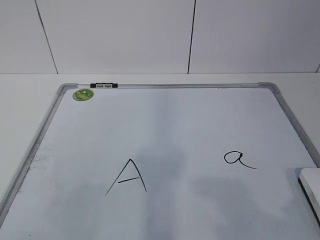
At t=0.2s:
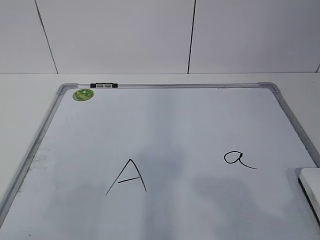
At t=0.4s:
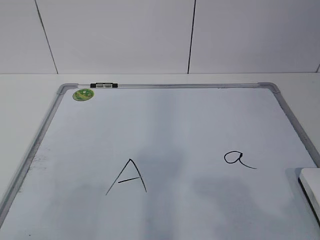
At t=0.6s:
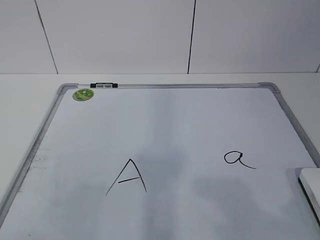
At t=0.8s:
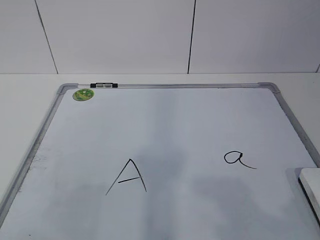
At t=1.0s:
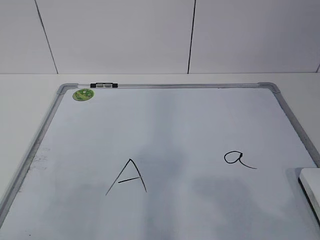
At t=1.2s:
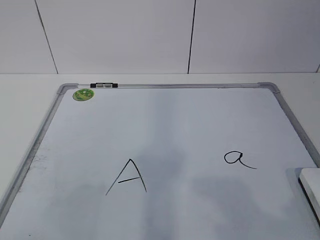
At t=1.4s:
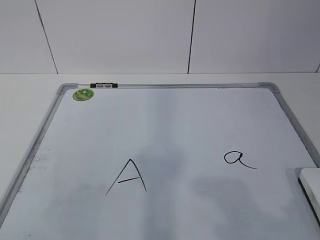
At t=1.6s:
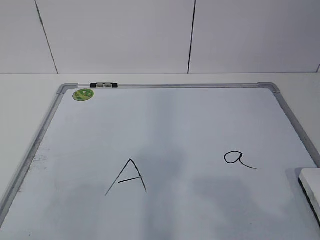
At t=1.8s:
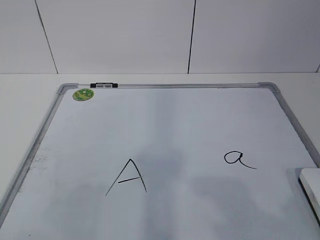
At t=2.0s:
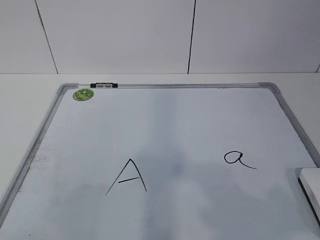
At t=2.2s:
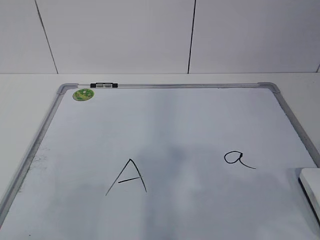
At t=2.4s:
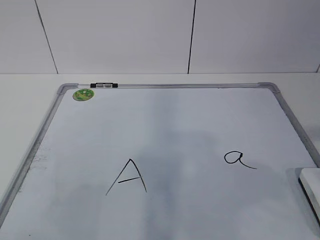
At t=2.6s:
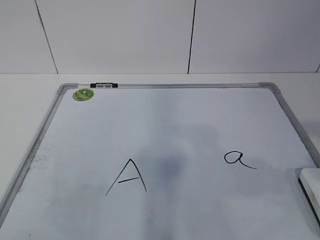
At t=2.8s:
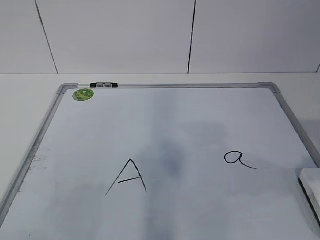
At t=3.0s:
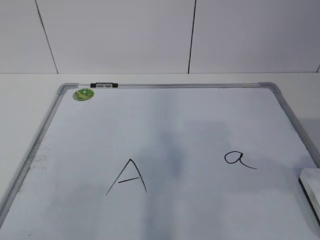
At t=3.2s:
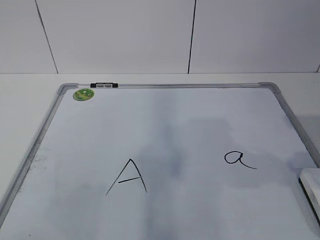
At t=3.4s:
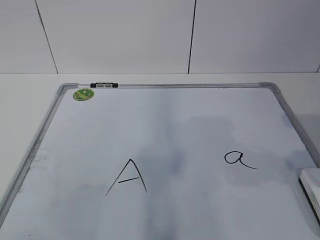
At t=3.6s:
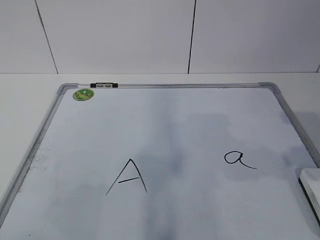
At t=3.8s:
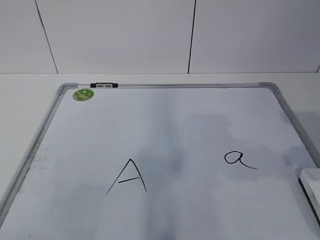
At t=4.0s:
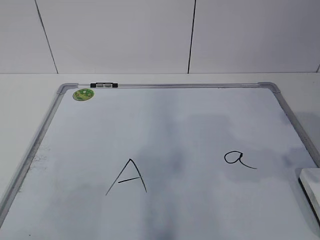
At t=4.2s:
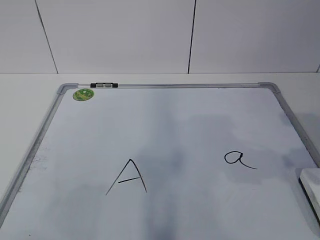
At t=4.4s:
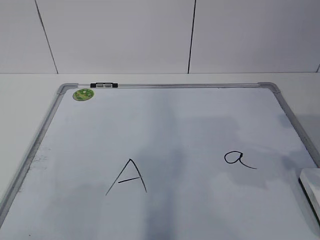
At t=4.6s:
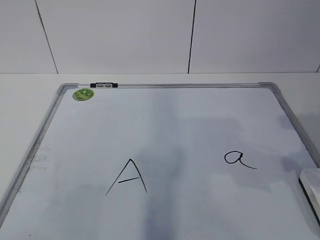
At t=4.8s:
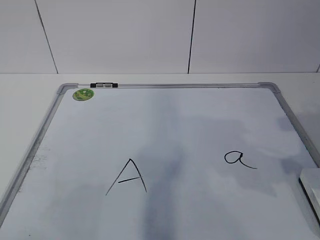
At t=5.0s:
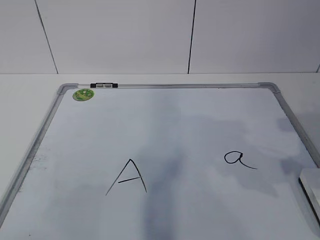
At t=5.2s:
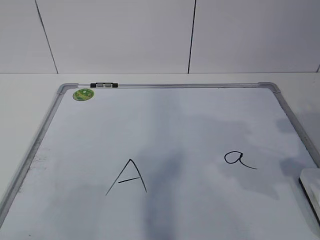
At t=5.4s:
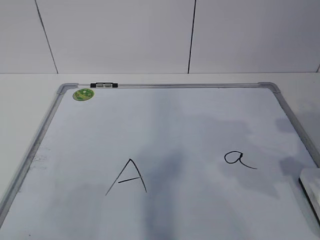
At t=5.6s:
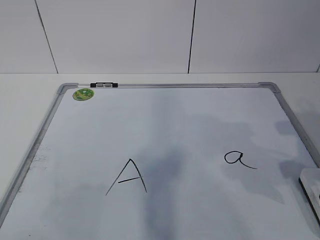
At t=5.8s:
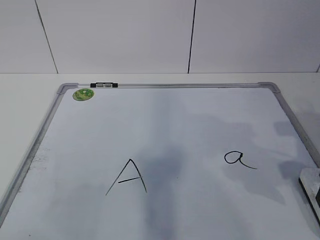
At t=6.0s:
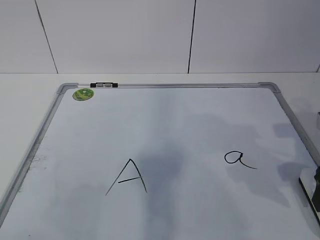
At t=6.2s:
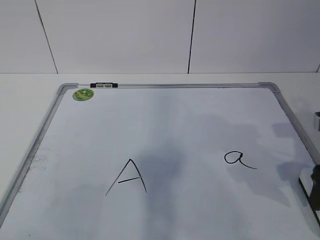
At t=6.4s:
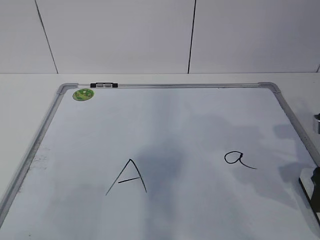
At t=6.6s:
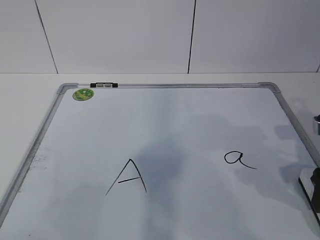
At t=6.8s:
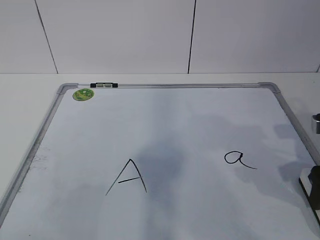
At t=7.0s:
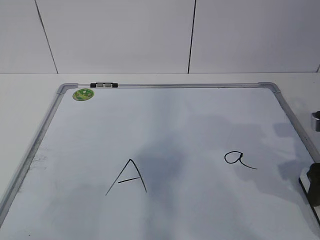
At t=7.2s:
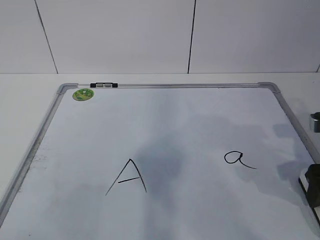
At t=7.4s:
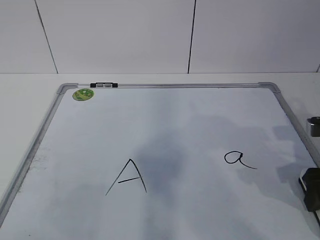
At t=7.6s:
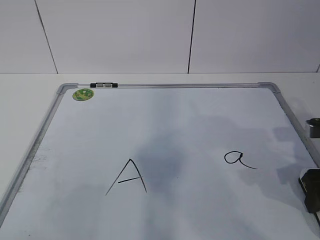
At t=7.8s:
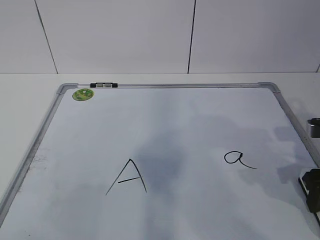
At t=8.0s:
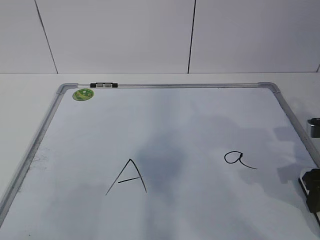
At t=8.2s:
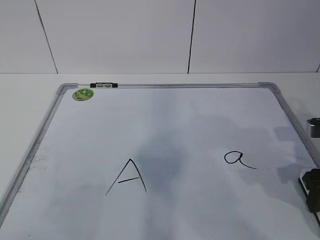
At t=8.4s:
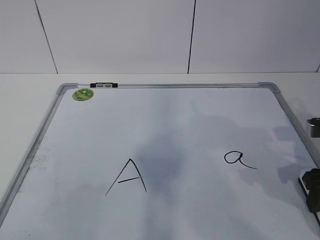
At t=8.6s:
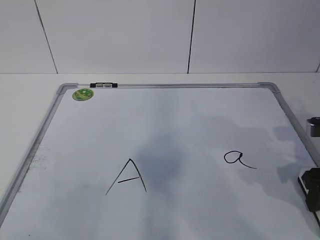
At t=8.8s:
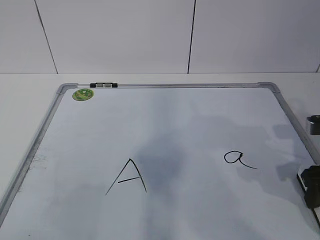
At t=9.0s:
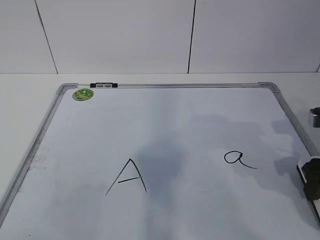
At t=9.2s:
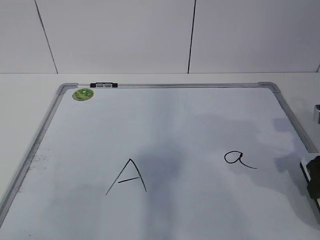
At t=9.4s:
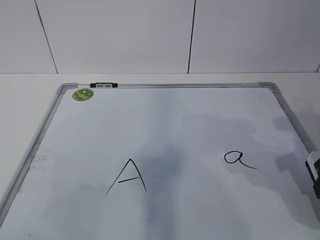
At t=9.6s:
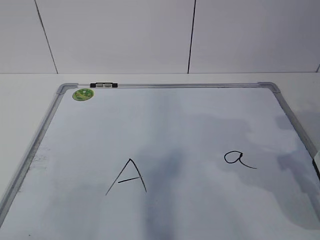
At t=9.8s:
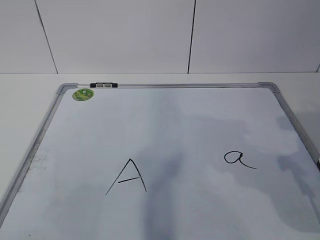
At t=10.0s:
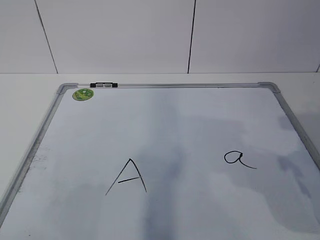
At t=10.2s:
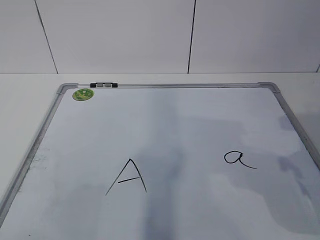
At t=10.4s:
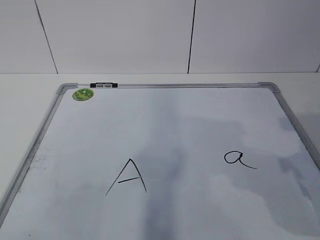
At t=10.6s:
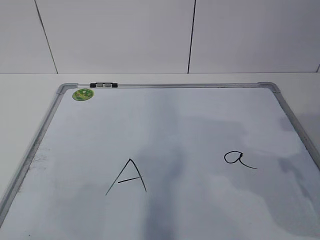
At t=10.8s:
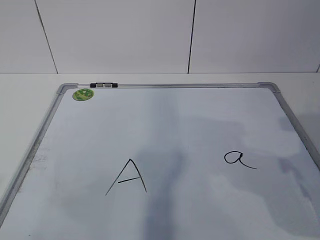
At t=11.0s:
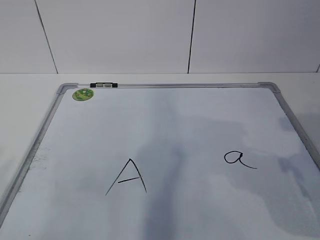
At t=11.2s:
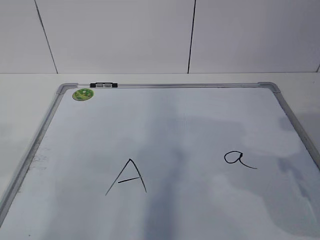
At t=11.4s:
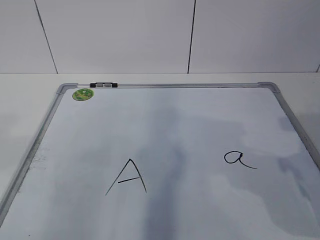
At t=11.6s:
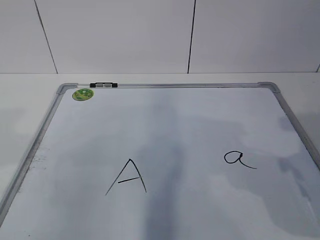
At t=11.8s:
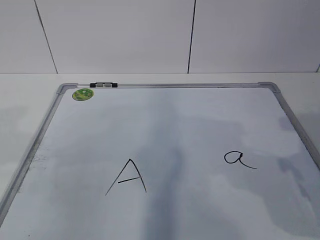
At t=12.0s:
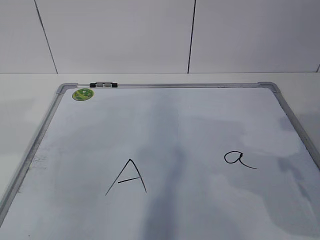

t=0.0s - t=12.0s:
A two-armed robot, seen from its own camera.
Task of the whole recording: pick up the eraser on the blackboard and erase the letter "a".
t=4.4s - t=6.0s: The right gripper is displaced downward by about 5 cm, and opens up.
t=6.0s - t=7.6s: There are only small adjustments of the grippers.
t=7.6s - t=9.0s: The right gripper closes up.
t=9.0s - t=10.4s: The right gripper travels upward and backward by roughly 10 cm.

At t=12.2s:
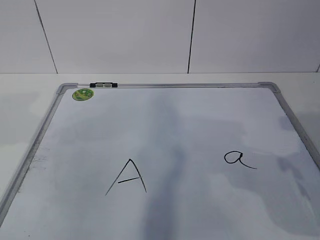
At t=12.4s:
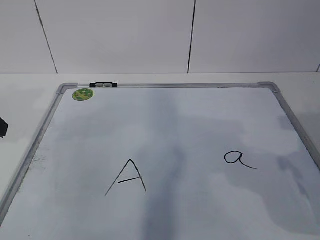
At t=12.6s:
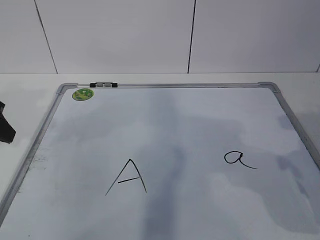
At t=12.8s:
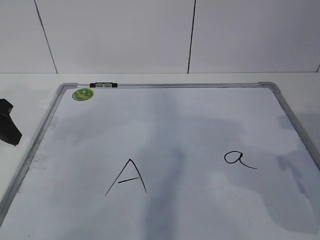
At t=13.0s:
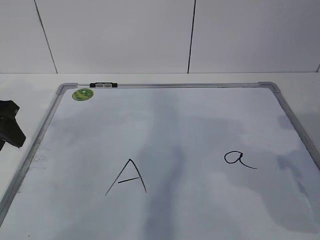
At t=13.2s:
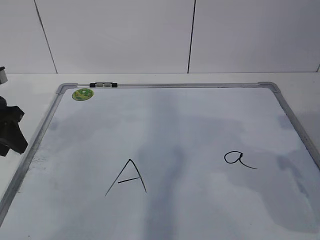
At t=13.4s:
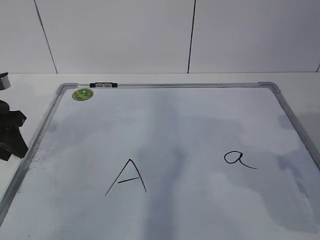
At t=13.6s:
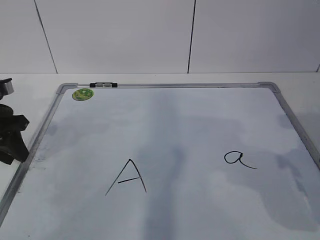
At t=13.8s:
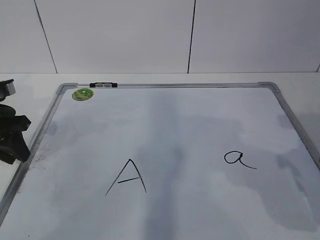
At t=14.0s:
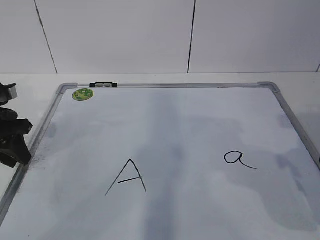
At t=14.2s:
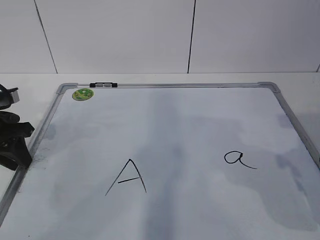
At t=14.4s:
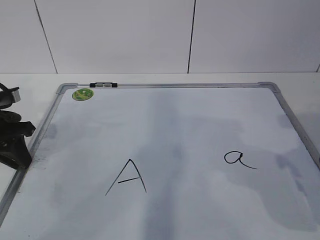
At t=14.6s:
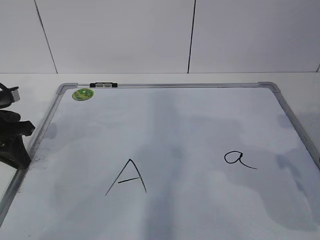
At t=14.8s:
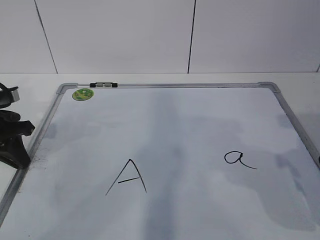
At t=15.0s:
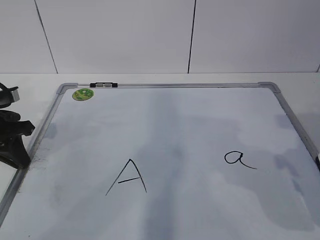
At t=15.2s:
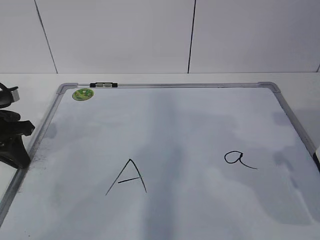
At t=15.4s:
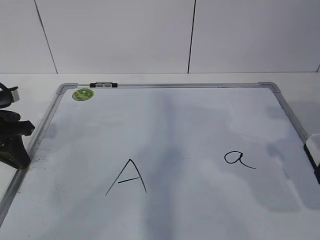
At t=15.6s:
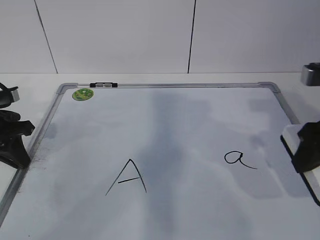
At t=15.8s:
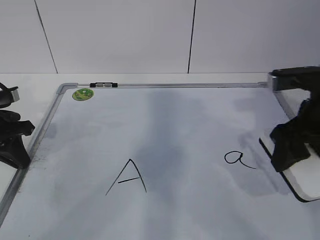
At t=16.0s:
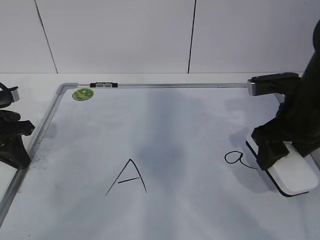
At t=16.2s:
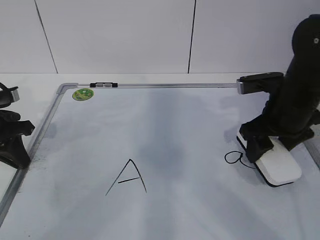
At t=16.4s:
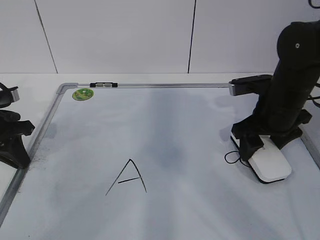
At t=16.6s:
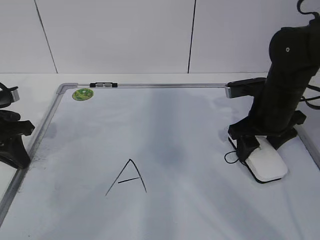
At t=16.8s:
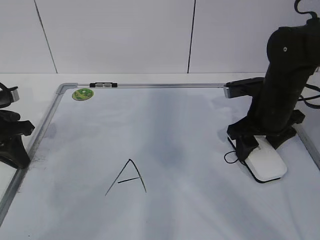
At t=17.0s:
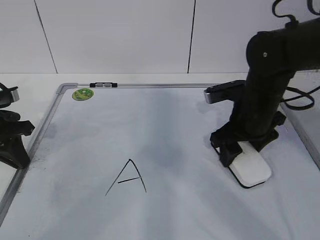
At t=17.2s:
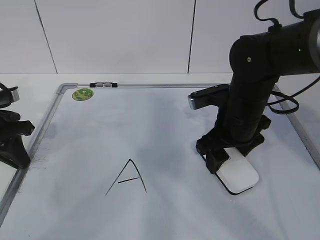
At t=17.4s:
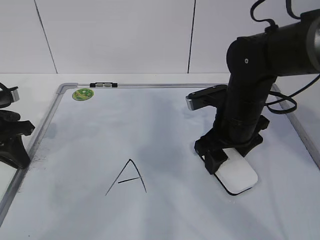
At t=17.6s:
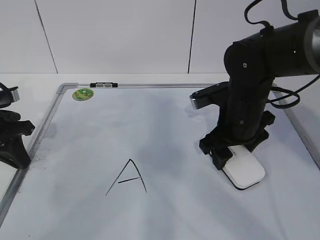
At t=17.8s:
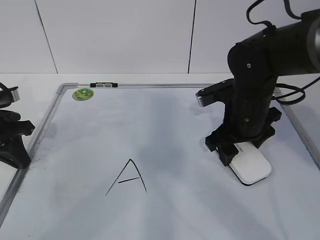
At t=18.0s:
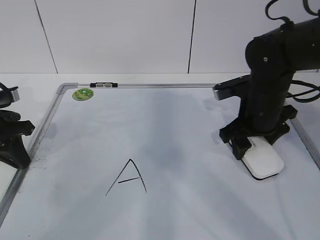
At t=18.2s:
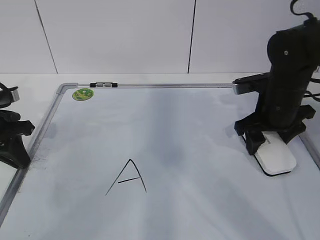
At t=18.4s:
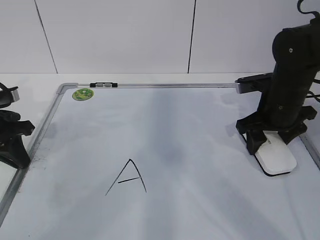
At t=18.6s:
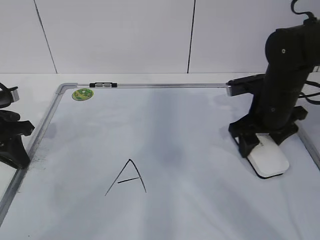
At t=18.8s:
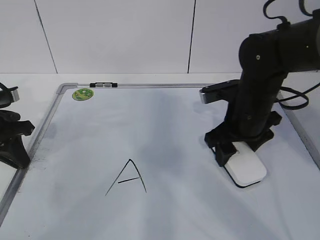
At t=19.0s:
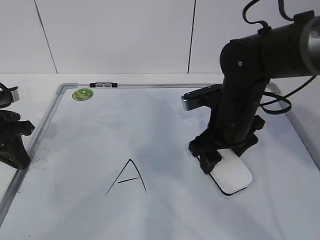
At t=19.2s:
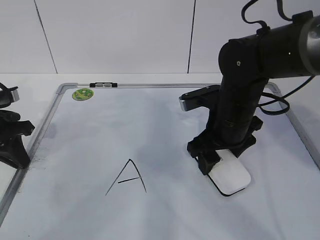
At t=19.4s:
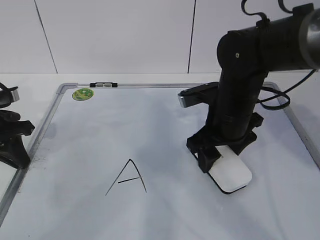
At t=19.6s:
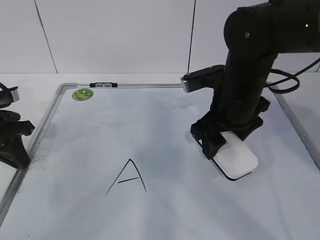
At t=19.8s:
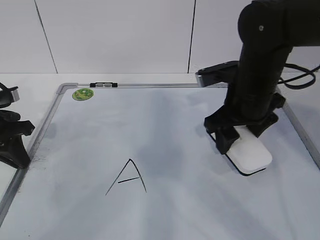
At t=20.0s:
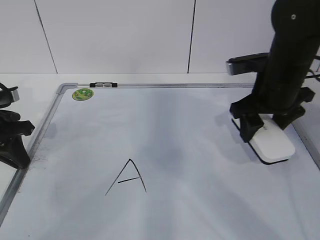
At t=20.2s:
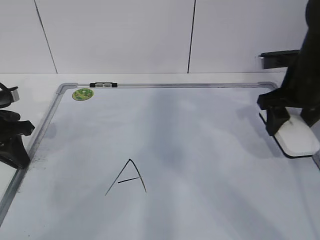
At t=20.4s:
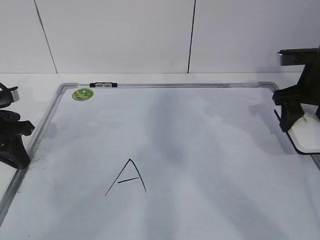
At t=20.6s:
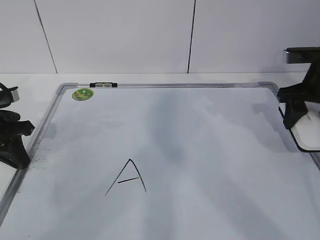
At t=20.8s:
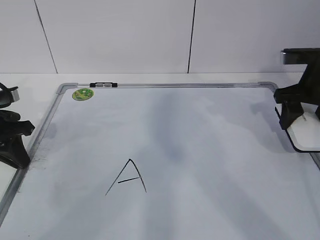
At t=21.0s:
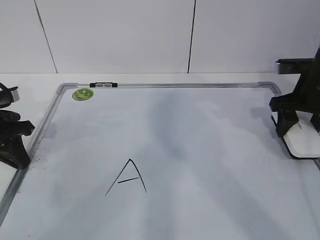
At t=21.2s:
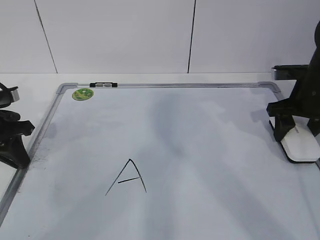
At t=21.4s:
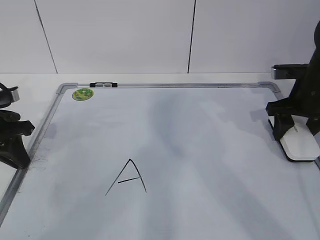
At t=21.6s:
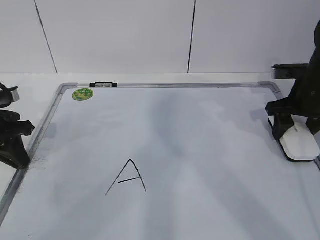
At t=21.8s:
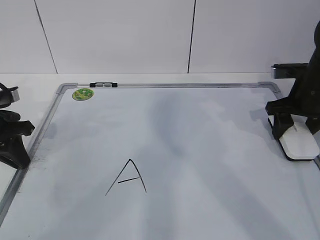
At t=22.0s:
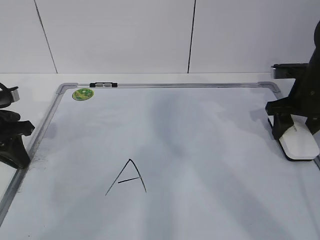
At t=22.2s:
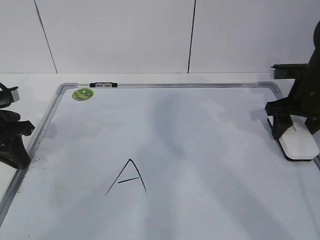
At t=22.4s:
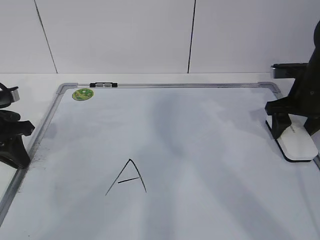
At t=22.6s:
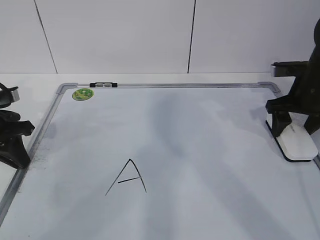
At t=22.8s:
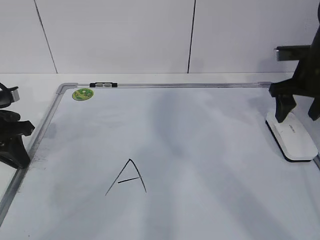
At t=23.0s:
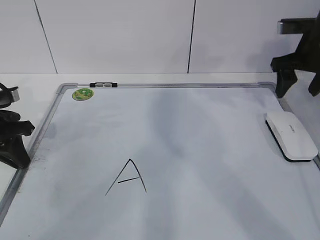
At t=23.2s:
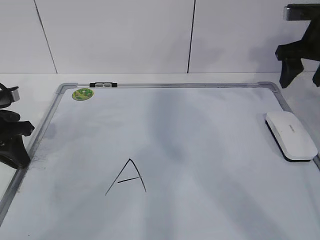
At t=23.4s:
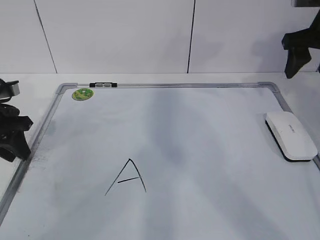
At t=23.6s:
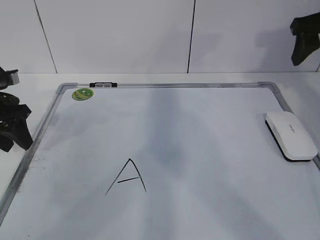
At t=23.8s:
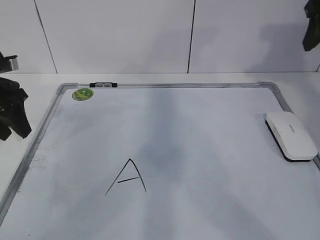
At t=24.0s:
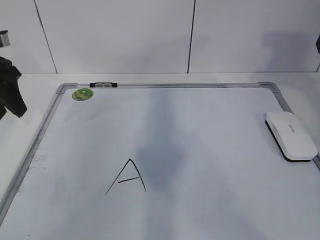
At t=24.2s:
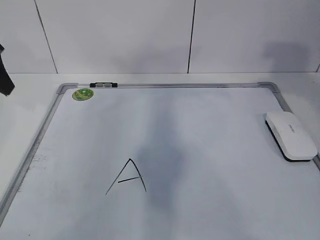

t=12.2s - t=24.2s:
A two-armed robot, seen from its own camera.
Task of the whole recording: pick up the eraser on the blackboard and erase the letter "a".
Step, t=12.2s - t=15.8s: Erase the letter a with your right hand.
Step, t=16.0s - t=18.6s: Put down the eraser with your right hand.
t=12.2s - t=13.8s: The left gripper is displaced forward and downward by roughly 15 cm, and closes its fingers.
t=13.8s - t=15.2s: The left gripper closes up.
t=15.2s - t=16.6s: The right gripper shifts about 20 cm forward, downward and to the left.
t=16.6s - t=18.2s: The right gripper goes to the left and returns, some 5 cm each way.
t=18.2s - t=19.8s: The right gripper moves to the left, some 5 cm.
t=19.8s - t=21.2s: The right gripper moves to the right, roughly 15 cm.
t=21.2s - t=22.6s: The right gripper opens.
t=22.6s - t=24.2s: The right gripper moves upward and backward, approximately 20 cm; the left gripper travels upward by some 15 cm, and opens.
